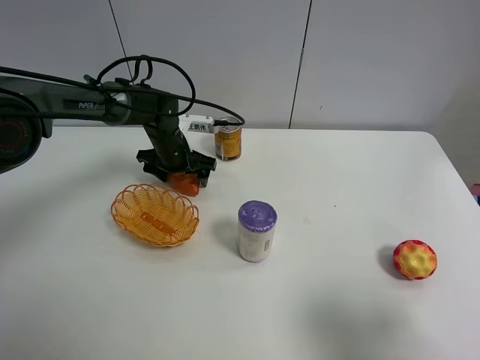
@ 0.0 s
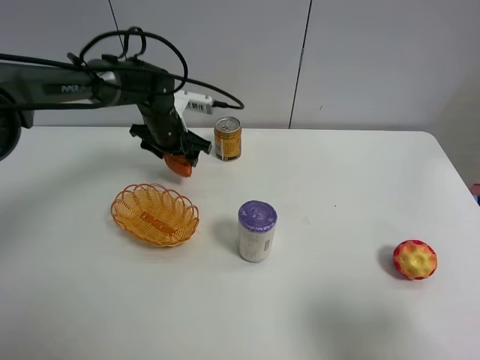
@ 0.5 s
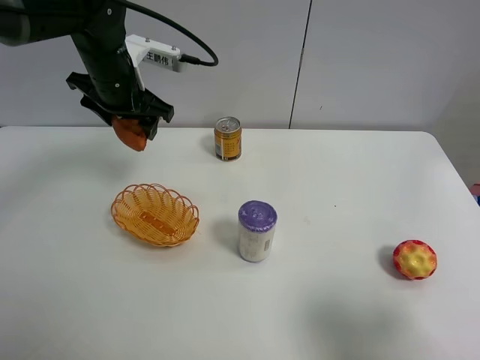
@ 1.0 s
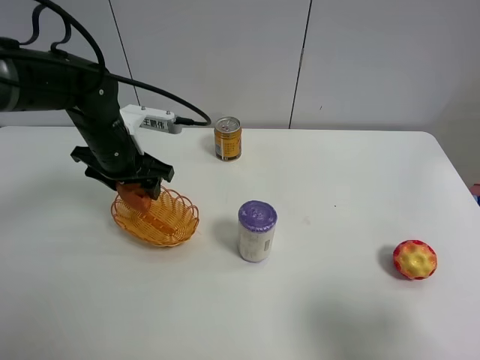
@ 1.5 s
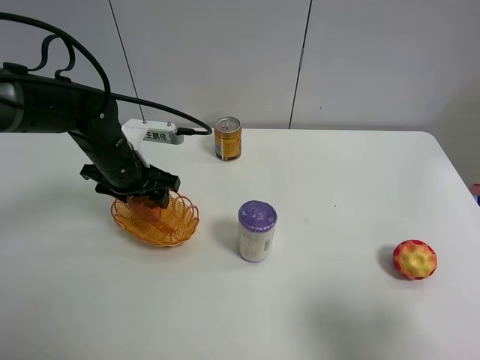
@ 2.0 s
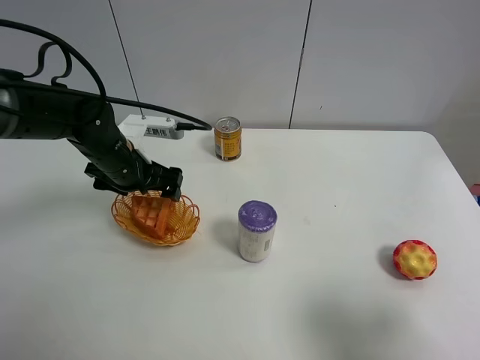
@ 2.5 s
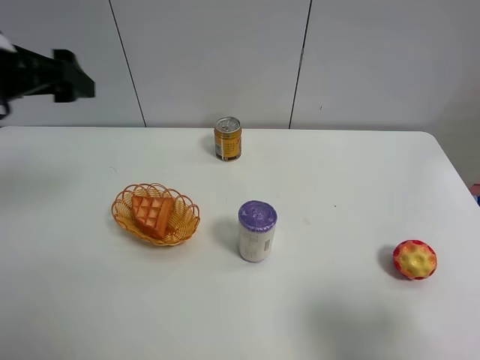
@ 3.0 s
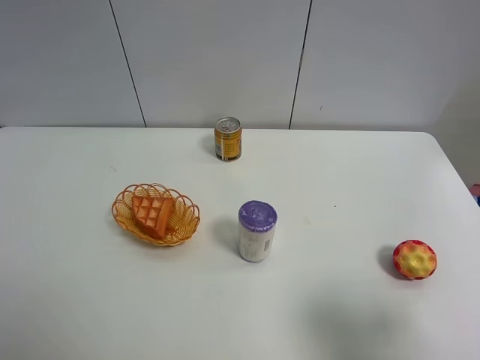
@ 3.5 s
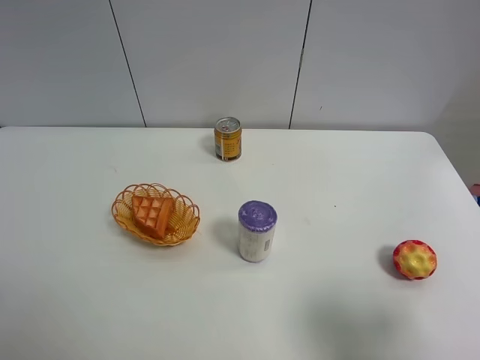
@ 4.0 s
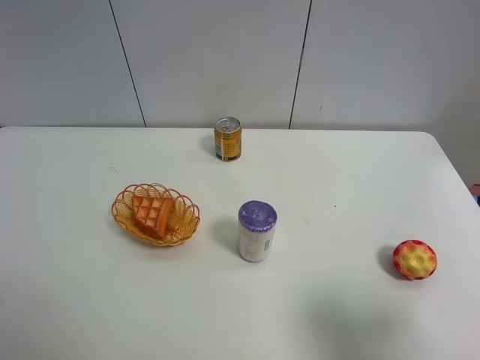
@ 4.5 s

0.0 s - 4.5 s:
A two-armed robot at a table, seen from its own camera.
Task of the whole recording: Put the bakery in the basket.
0.0 s - 2.0 s: The left gripper heads backward and upward, covering some 15 cm, and closes.
2.0 s - 4.5 s: The left gripper travels backward and to the left by some 35 cm, and opens its fingers.
